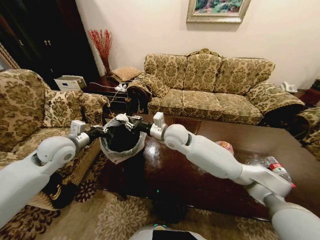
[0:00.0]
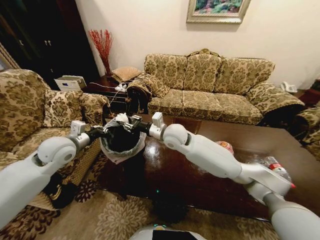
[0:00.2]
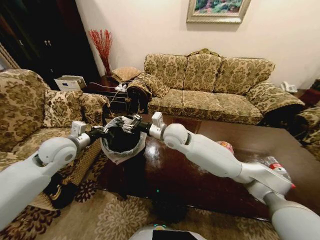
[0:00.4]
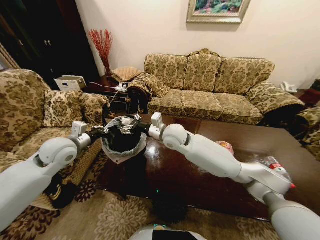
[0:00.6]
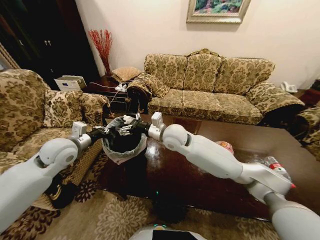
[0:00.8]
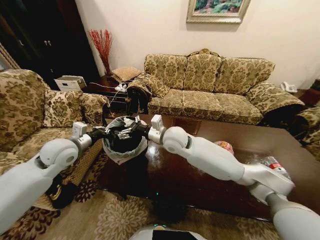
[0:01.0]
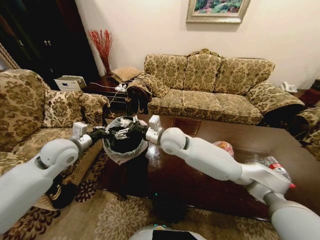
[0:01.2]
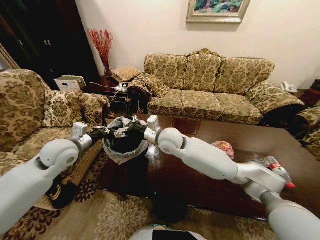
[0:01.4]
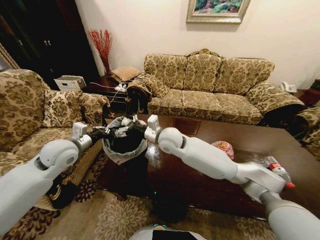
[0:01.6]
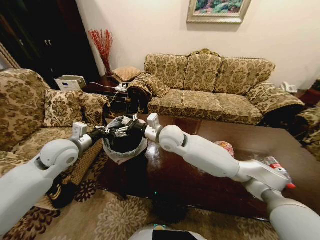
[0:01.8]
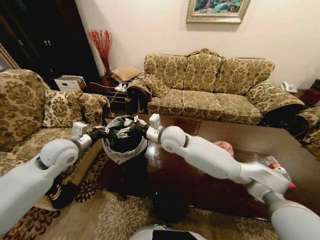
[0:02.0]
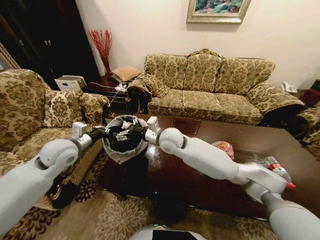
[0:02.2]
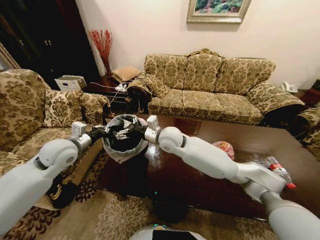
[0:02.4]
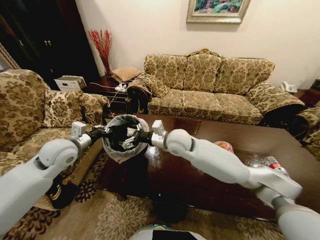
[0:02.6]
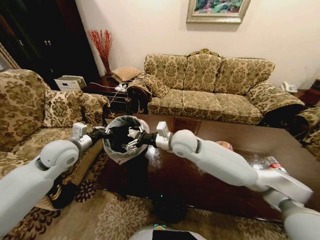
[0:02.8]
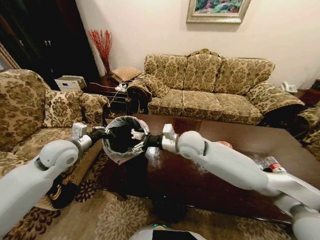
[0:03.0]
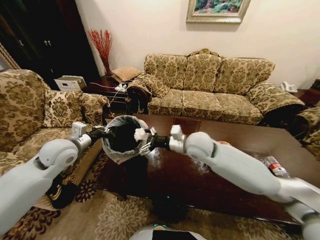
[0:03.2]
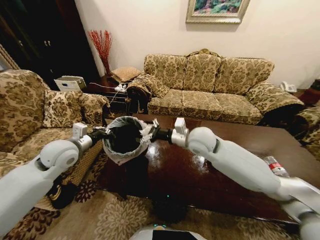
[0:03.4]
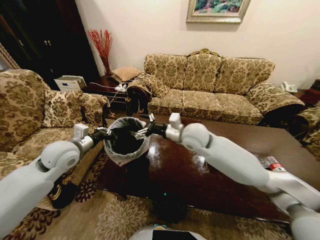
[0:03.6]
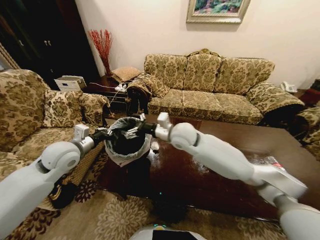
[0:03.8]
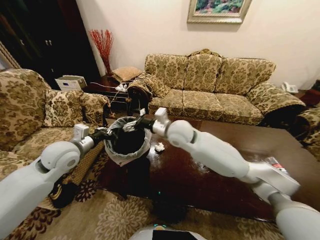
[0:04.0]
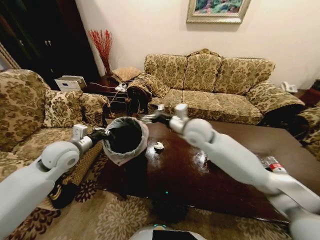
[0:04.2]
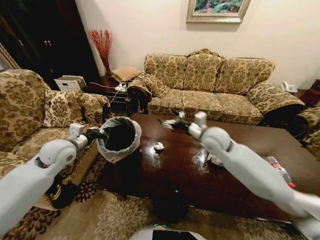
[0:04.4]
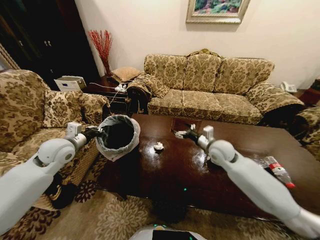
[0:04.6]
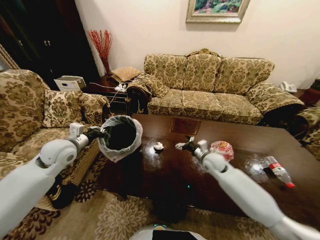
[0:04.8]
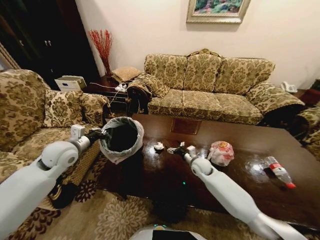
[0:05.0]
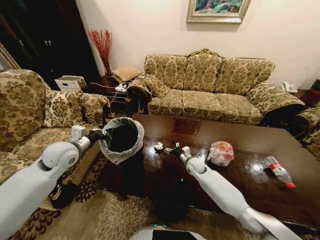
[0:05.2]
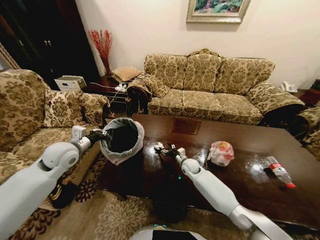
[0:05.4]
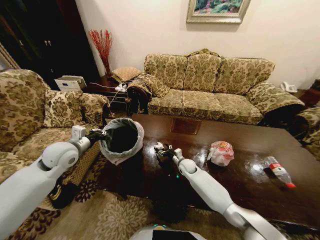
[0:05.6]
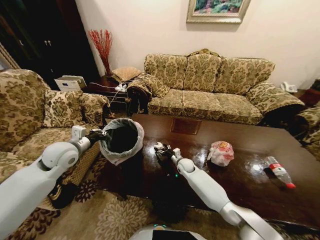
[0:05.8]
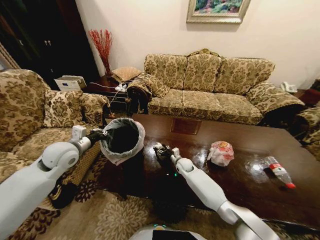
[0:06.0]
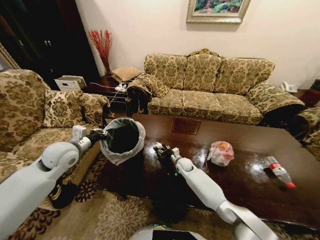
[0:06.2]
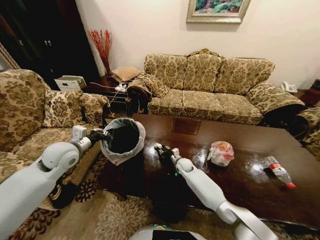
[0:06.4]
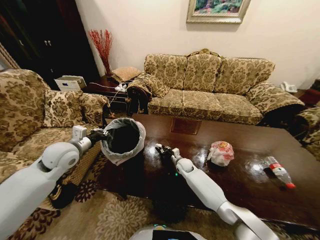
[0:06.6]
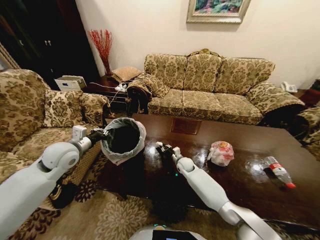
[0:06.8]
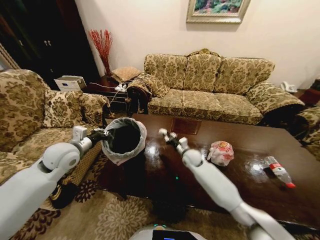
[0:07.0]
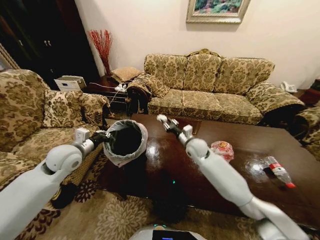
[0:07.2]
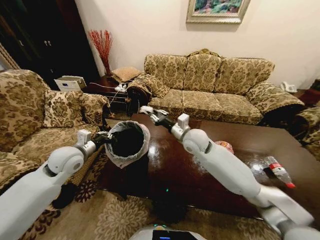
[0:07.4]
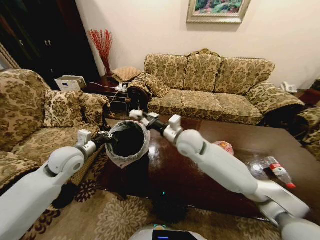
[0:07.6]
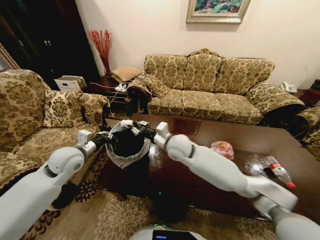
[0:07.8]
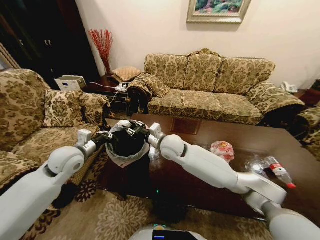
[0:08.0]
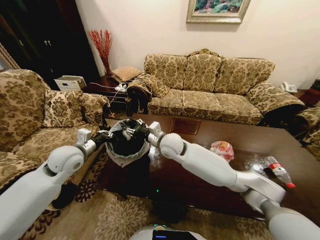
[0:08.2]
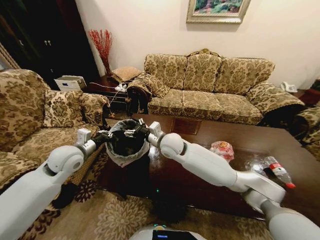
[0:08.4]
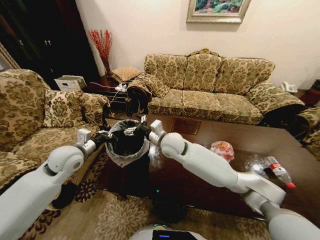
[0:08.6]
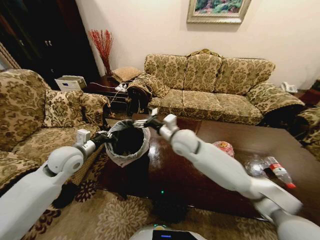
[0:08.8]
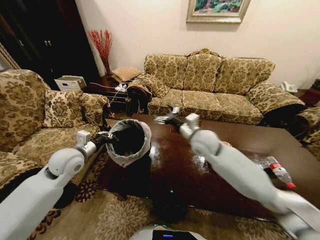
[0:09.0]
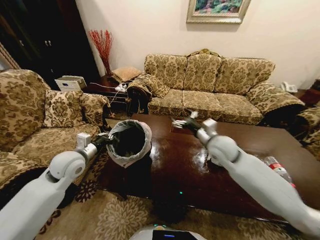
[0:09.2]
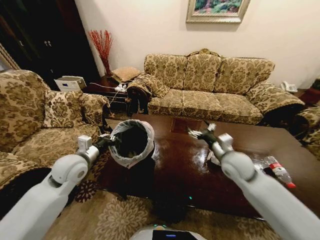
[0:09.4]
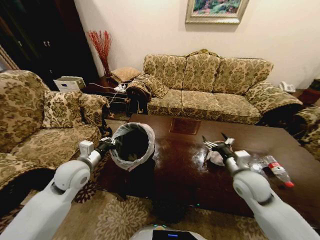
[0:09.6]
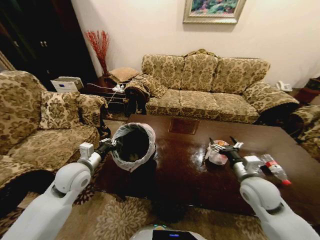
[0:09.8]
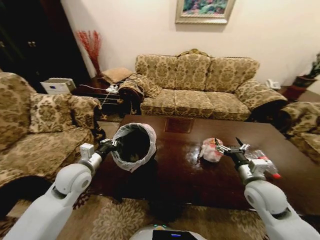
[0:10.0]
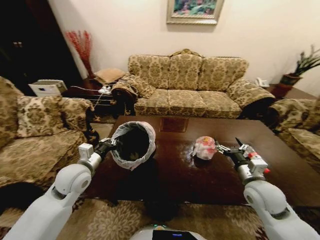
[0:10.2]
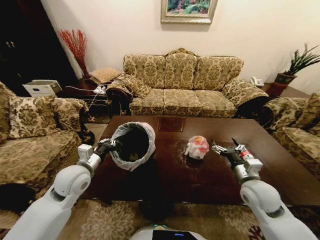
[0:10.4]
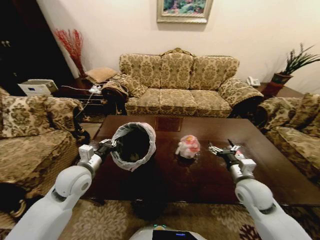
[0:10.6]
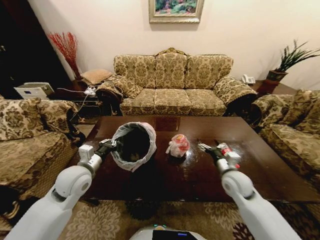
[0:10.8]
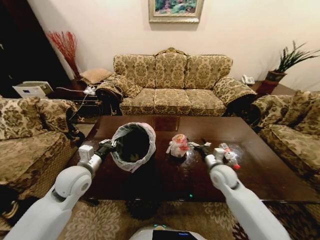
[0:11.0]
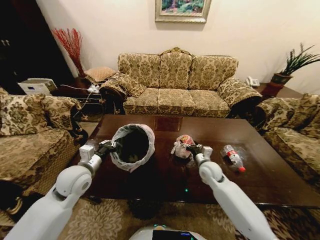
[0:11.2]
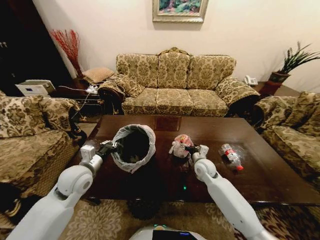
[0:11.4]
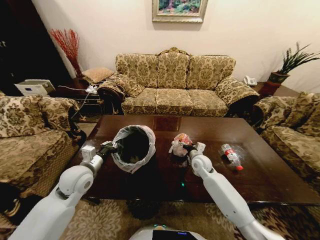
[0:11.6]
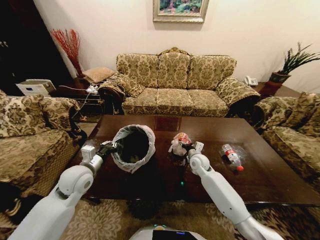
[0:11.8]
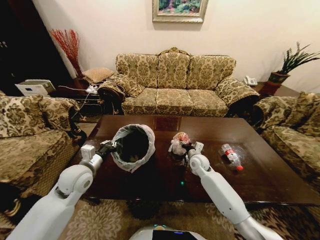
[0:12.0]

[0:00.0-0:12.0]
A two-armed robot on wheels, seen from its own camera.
Task of the whole recording: Move to the front of the table and place the trash on the table into the trash bin.
0:00.0 to 0:01.6: The right gripper opens its fingers.
0:01.6 to 0:03.0: The right gripper shifts about 5 cm to the right.
0:03.0 to 0:04.4: The right gripper is displaced to the right by about 10 cm.
0:04.4 to 0:06.0: The right gripper shifts about 30 cm downward, and closes its fingers.
0:06.0 to 0:07.6: The right gripper is displaced upward by about 30 cm, and closes up.
0:07.6 to 0:09.0: The right gripper goes approximately 5 cm to the right, and opens its fingers.
0:09.0 to 0:10.4: The right gripper shifts about 25 cm to the right, backward and downward. The left gripper moves some 5 cm.
0:10.4 to 0:12.0: The right gripper goes some 25 cm forward, to the left and downward.

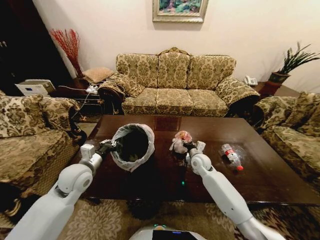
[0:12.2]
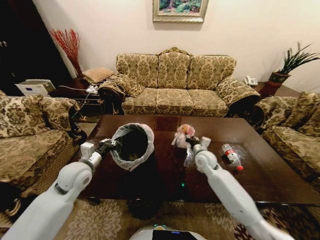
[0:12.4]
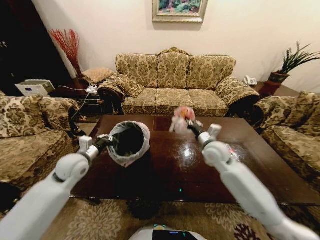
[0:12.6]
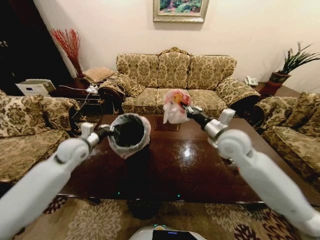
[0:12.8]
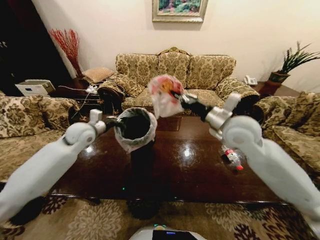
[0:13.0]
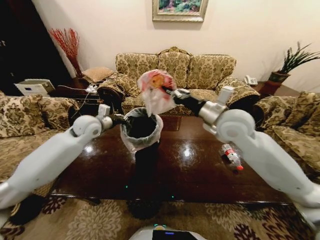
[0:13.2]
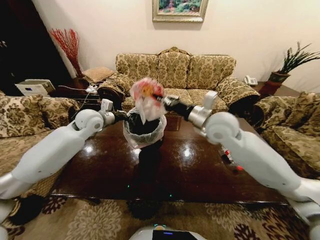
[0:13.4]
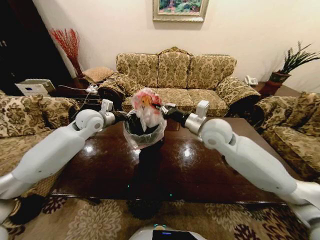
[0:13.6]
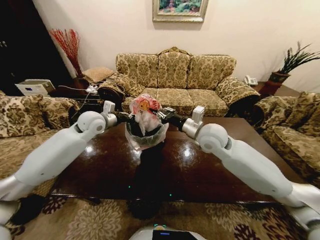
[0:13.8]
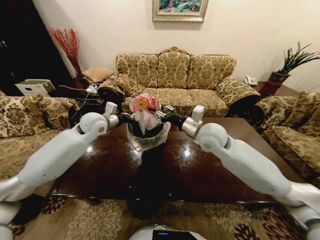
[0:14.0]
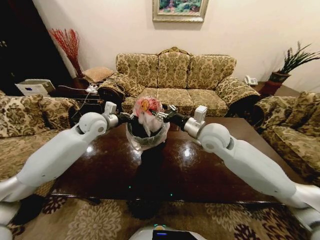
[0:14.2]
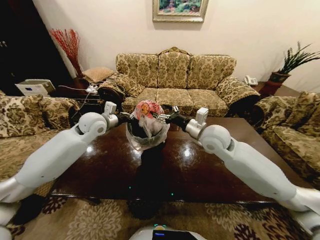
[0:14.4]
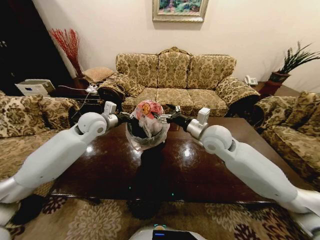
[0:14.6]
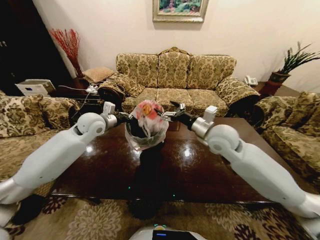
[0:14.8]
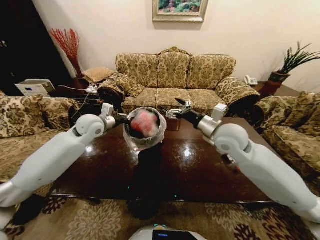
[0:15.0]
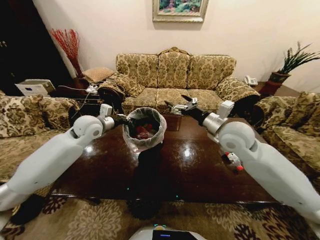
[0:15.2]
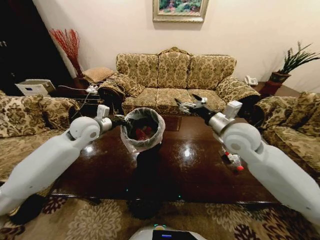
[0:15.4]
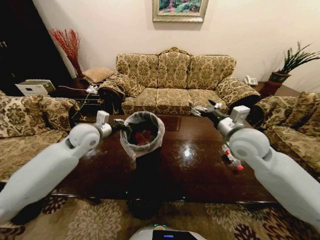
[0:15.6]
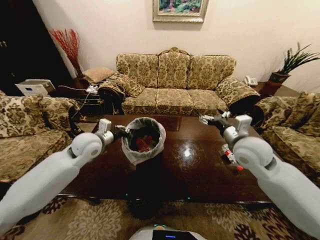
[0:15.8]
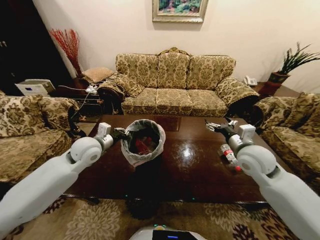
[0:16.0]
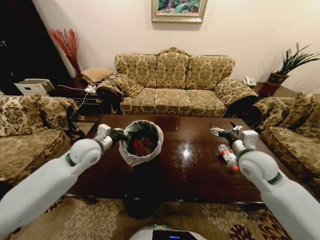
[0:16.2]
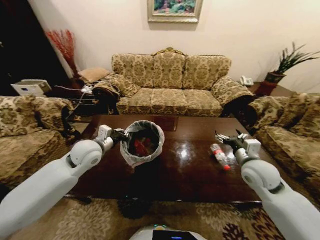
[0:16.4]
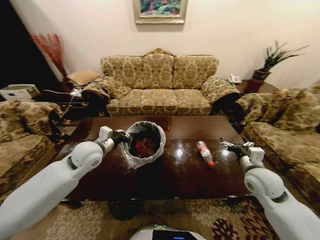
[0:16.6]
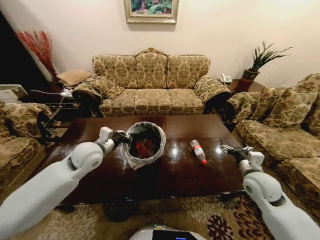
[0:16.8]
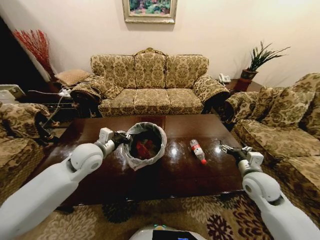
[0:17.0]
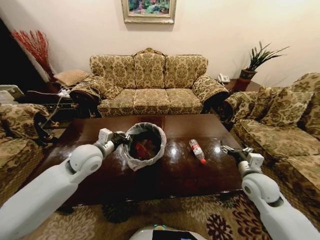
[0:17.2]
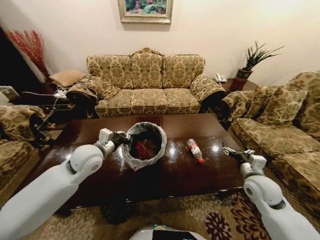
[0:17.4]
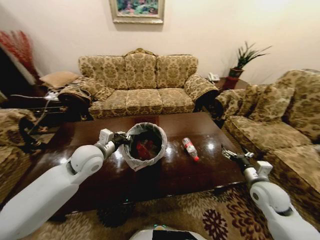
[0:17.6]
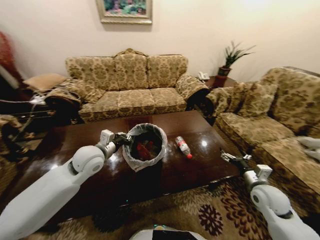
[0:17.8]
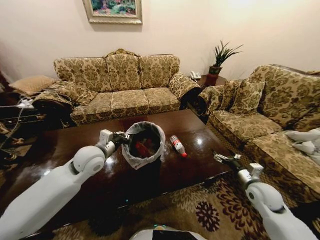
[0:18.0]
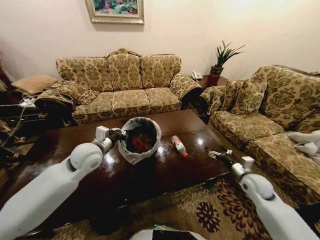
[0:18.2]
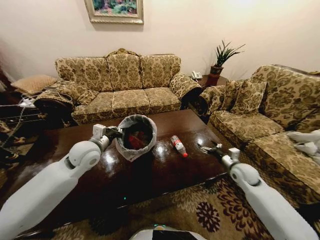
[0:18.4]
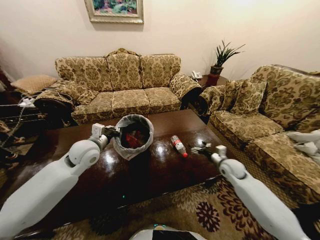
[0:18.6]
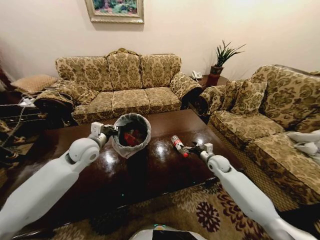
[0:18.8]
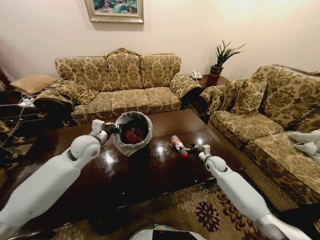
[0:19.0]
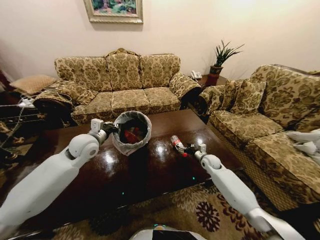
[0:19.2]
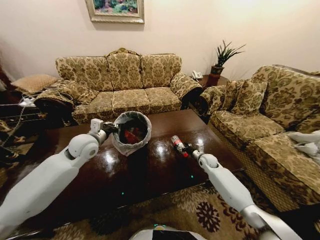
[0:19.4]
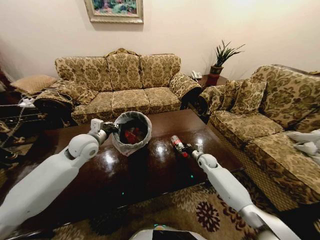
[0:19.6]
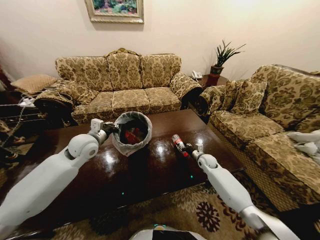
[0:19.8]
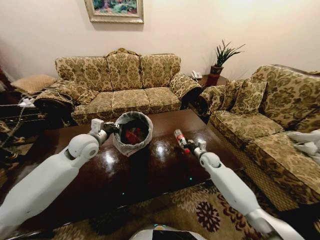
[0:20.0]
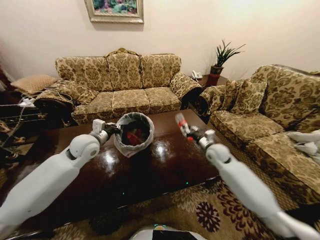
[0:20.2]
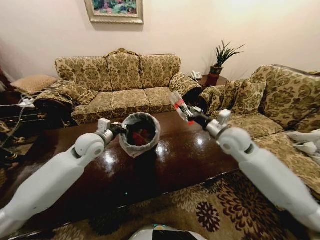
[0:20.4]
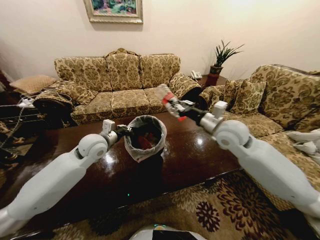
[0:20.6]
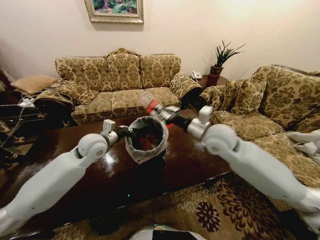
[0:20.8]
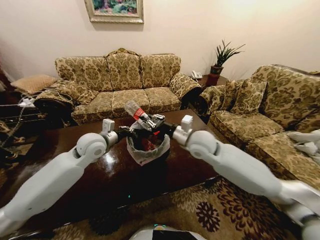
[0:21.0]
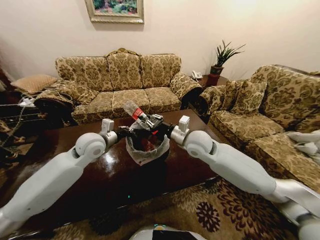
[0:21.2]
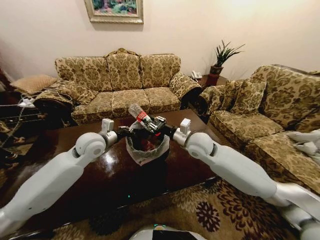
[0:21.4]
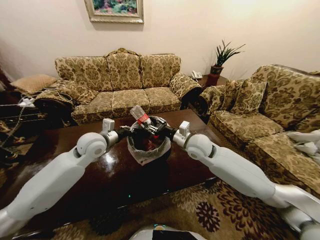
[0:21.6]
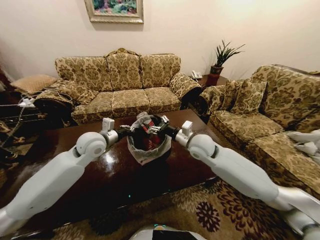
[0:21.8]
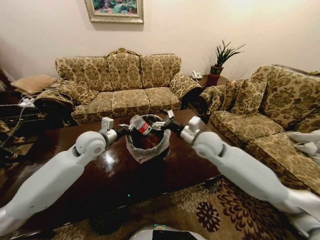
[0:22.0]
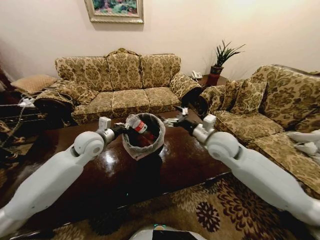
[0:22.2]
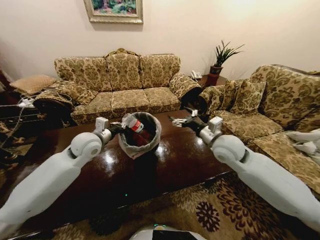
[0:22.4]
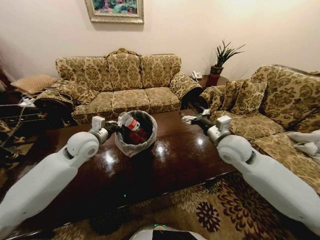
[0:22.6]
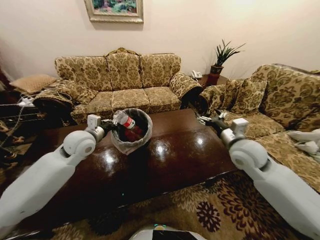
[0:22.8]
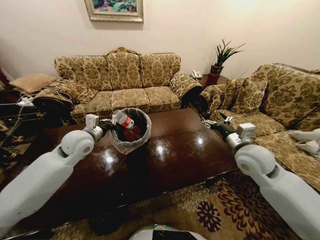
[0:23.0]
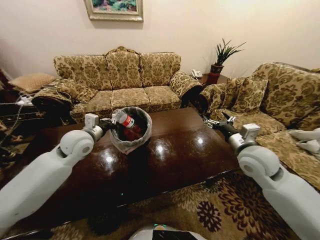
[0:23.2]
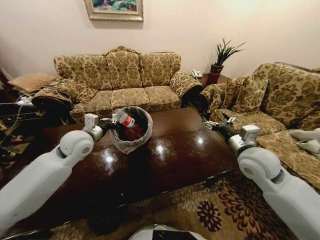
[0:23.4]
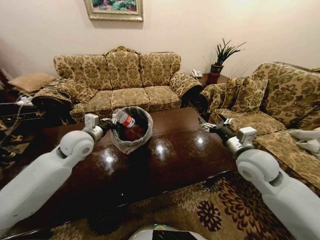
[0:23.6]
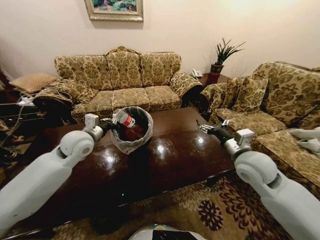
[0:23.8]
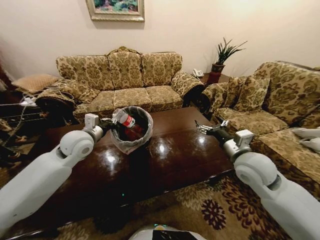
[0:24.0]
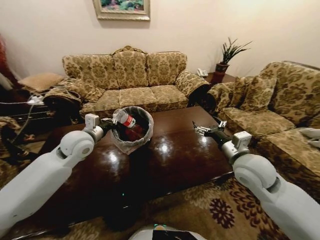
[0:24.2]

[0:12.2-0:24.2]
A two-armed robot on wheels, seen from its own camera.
Task of the whole recording: Move to the front of the table and place the trash on the table into the trash bin.
0:12.2 to 0:13.8: The left gripper heads forward and upward, covering some 20 cm. Meanwhile the right gripper goes about 25 cm upward, and closes its fingers.
0:13.8 to 0:15.2: The right gripper travels to the right by about 5 cm, and opens up.
0:15.2 to 0:16.6: The left gripper moves backward and downward, some 10 cm. Meanwhile the right gripper goes roughly 20 cm downward, to the right and backward.
0:16.6 to 0:18.2: The right gripper shifts approximately 10 cm downward and to the right.
0:18.2 to 0:19.8: The right gripper goes roughly 20 cm forward, to the left and downward, and closes up; the left gripper ends up about 5 cm from where it was.
0:19.8 to 0:21.2: The right gripper goes some 30 cm upward and to the left, and closes its fingers.
0:21.2 to 0:22.6: The right gripper goes about 10 cm to the right, and opens.
0:22.6 to 0:24.2: The right gripper heads backward, covering some 5 cm.
